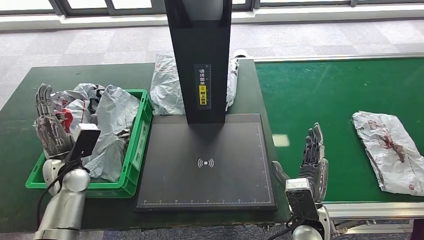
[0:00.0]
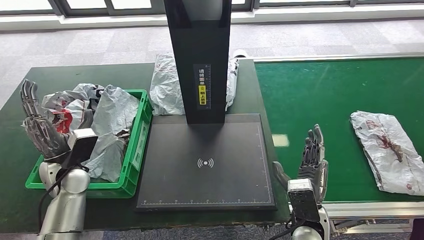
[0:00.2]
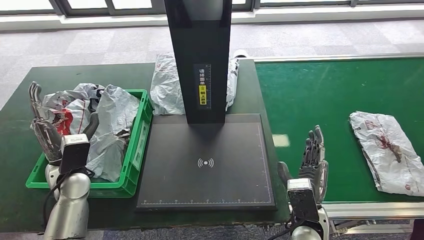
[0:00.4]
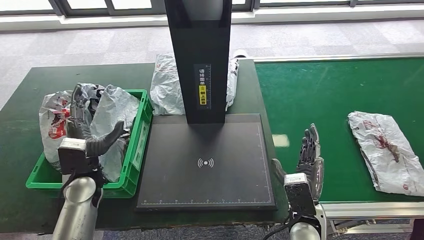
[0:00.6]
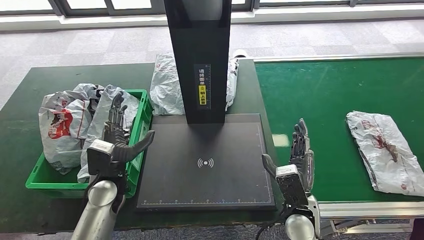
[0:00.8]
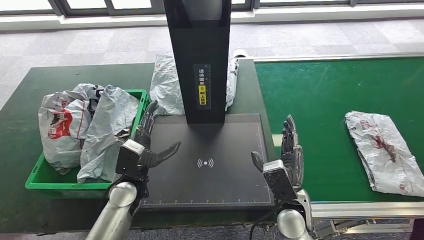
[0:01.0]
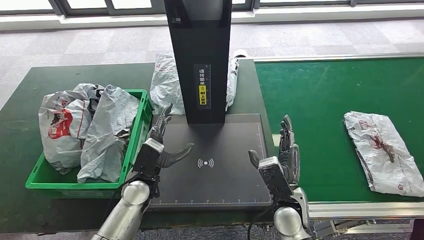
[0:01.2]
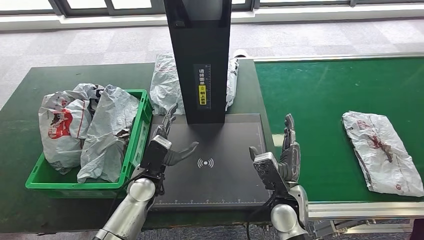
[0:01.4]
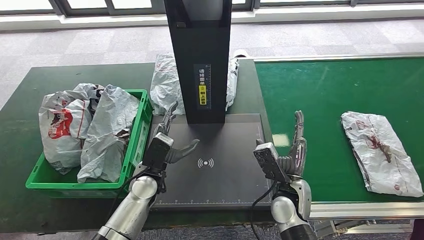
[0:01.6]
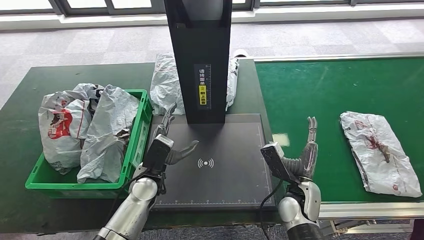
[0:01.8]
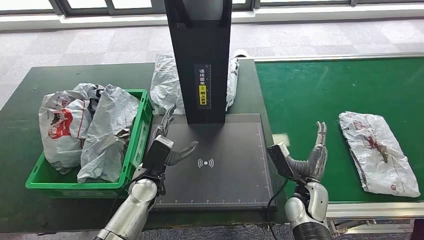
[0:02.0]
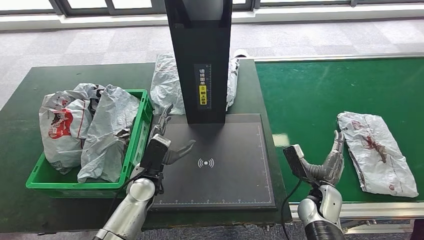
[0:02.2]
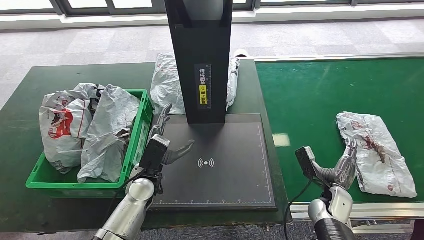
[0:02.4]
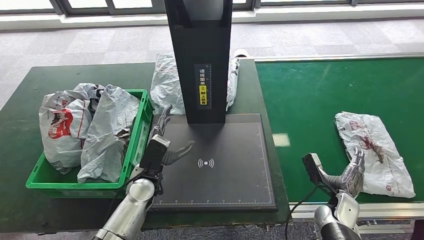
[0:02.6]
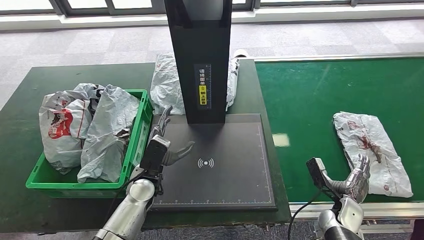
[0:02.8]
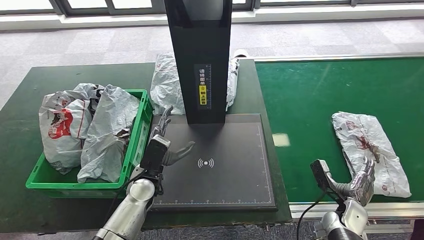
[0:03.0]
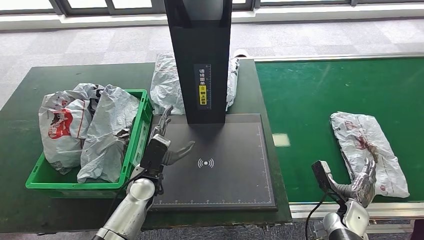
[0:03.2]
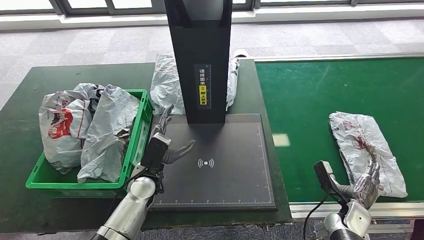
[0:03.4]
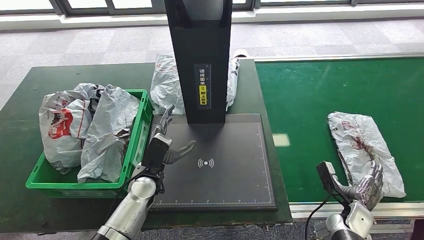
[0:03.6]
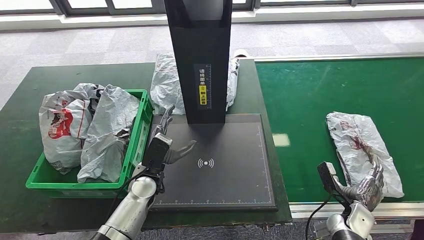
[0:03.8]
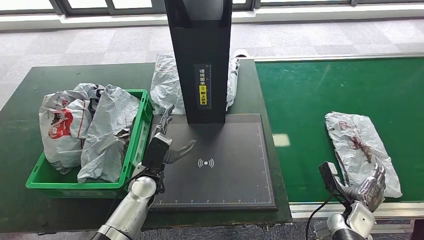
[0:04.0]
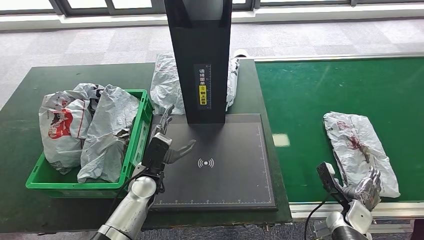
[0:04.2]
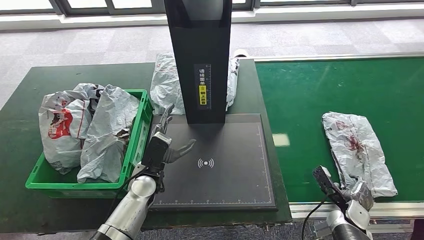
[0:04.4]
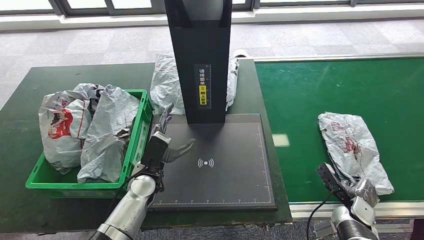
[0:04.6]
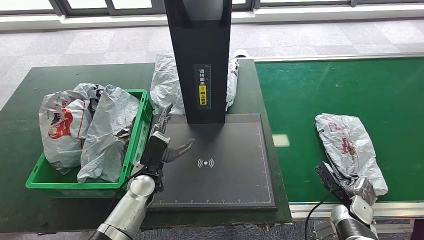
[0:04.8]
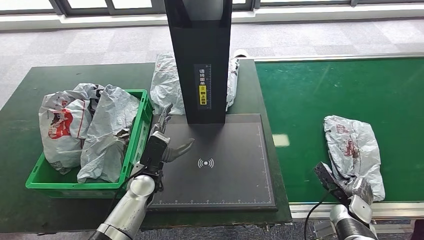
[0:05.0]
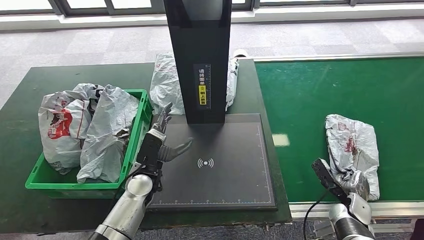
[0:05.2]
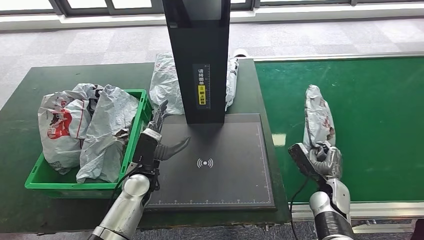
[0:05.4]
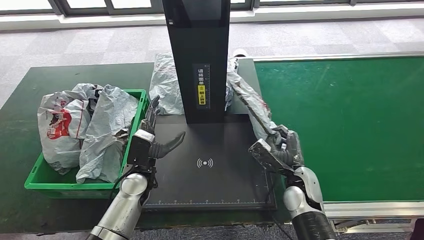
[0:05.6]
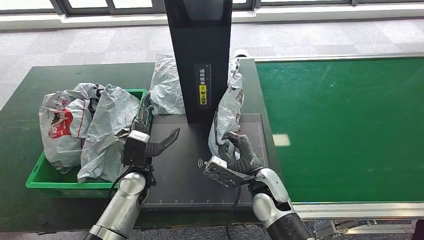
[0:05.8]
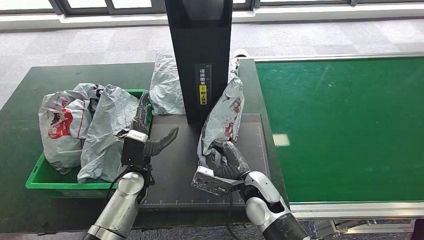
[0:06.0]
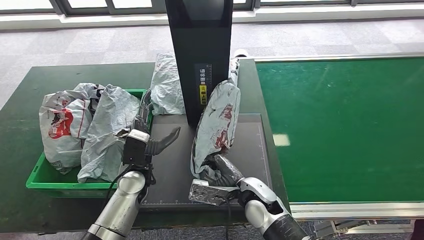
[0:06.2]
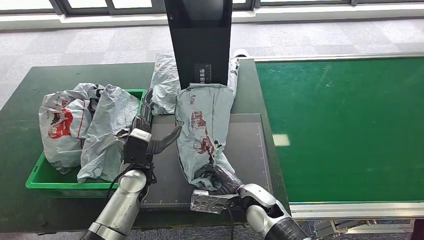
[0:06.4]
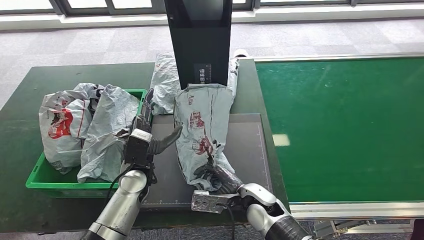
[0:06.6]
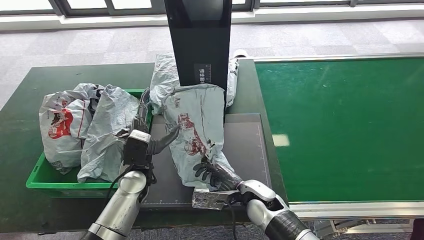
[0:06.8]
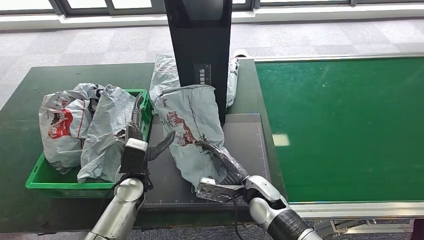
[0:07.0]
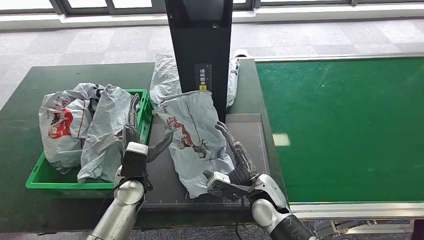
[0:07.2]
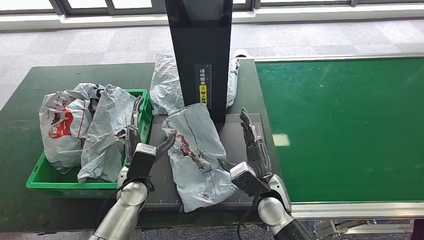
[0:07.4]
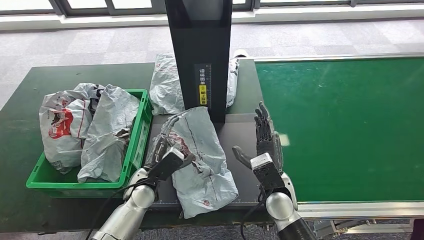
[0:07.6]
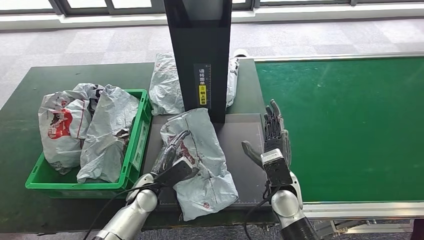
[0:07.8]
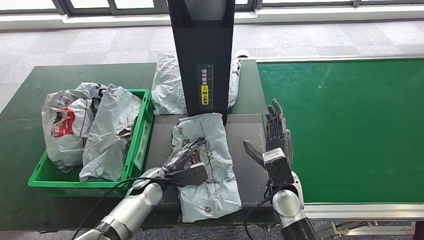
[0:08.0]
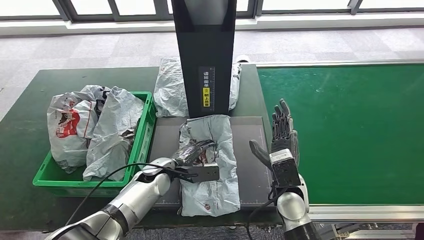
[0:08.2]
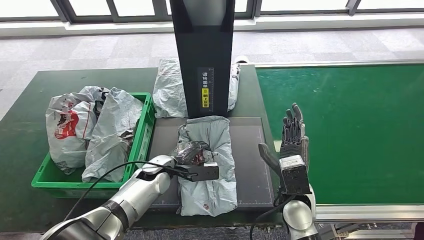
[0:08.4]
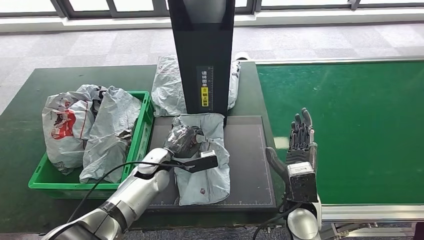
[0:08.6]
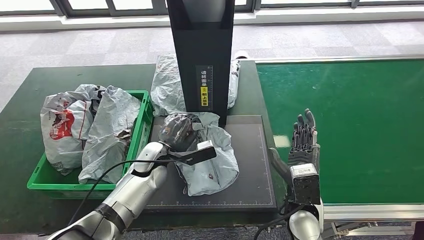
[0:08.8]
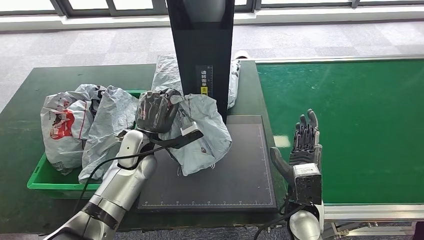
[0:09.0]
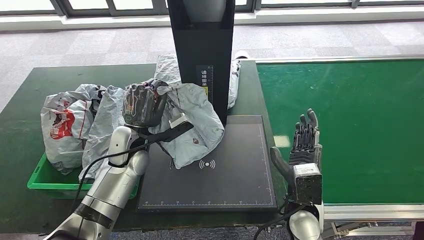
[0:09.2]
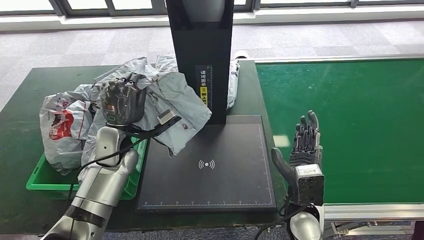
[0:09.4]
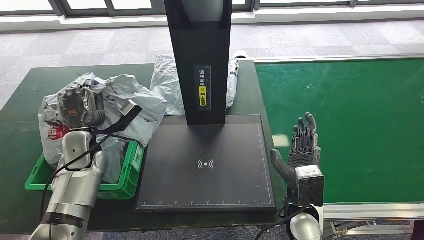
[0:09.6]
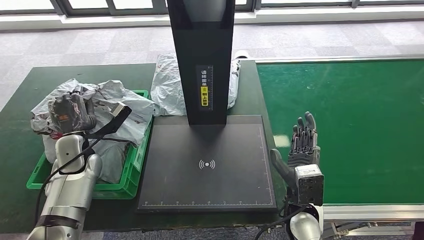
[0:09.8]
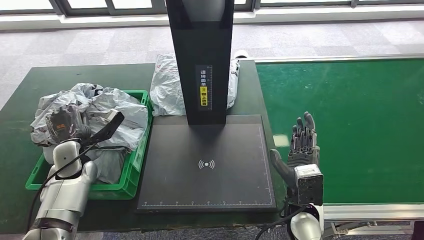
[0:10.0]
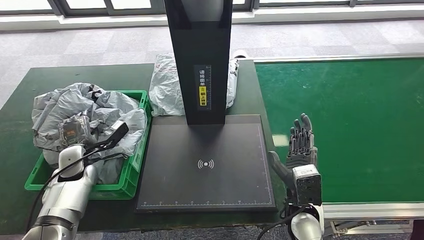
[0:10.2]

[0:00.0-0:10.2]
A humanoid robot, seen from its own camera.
Step, 0:00.0 to 0:01.6: Place the parcel into the delivery box.
Step, 0:02.0 to 0:06.4: Pick up the parcel from the conveyor belt.
Step, 0:06.8 to 0:08.4: Place the parcel onto the inbound machine.
Step, 0:08.6 to 0:10.0: Pick up the parcel from the inbound machine.
0:00.0 to 0:01.4: The left hand travels to the right by some 20 cm; the right hand changes place by approximately 5 cm.
0:01.4 to 0:03.0: The right hand moves to the right and downward, some 20 cm.
0:04.4 to 0:05.8: The right hand moves to the left and upward, some 25 cm.

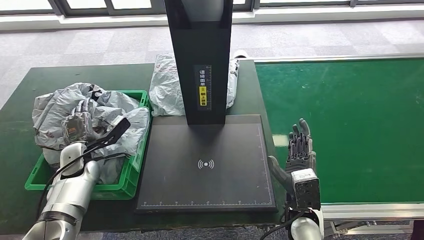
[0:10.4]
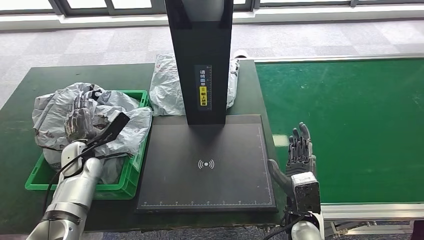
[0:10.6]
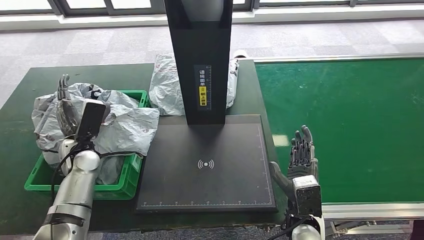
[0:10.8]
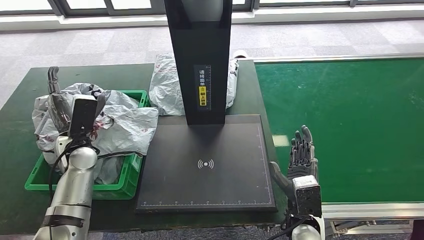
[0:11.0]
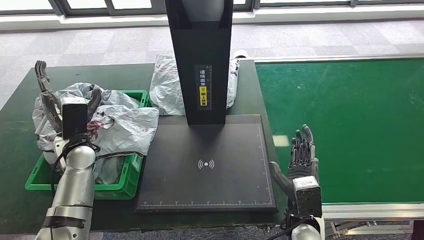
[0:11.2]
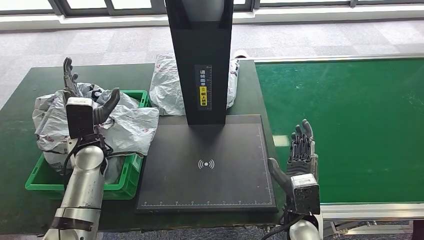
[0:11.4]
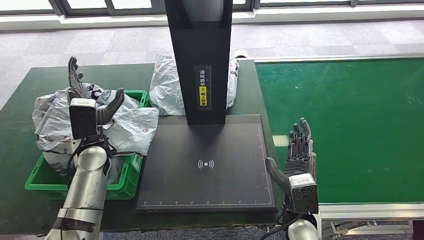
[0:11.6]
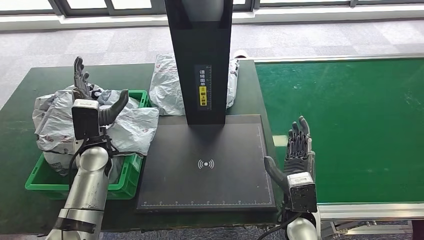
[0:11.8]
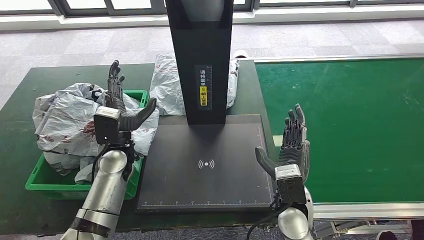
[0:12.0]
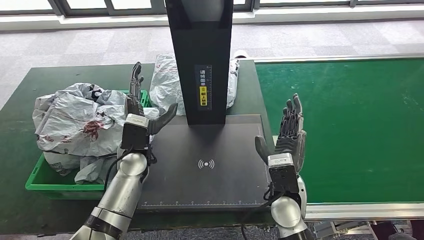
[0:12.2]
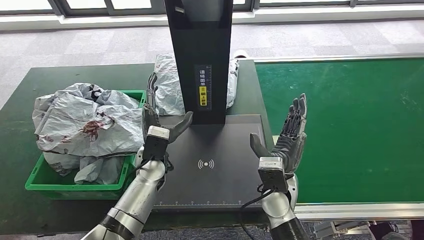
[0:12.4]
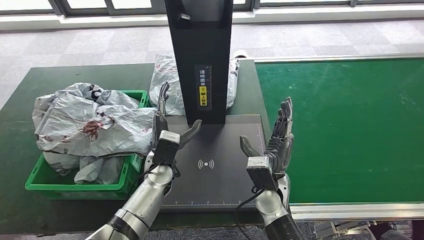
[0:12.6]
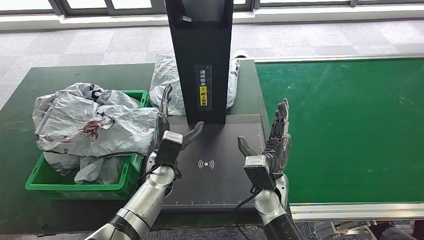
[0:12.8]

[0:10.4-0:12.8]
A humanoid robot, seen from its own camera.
Step, 0:10.4 to 0:12.8: Place the parcel into the delivery box.
0:10.4 to 0:11.6: The left hand shifts some 10 cm to the right and upward.
0:11.6 to 0:12.8: The left hand moves to the right and downward, some 20 cm; the right hand travels forward and to the left by roughly 10 cm.

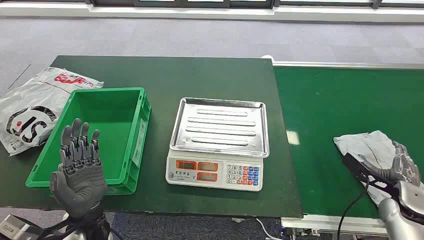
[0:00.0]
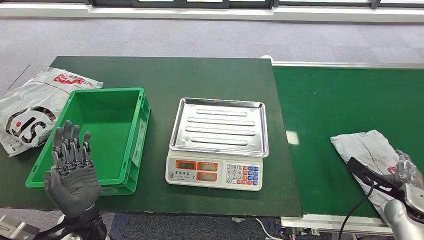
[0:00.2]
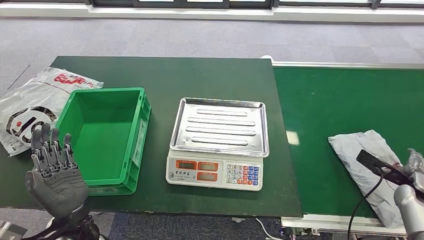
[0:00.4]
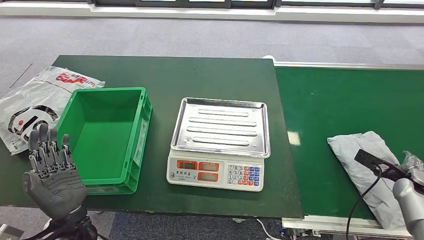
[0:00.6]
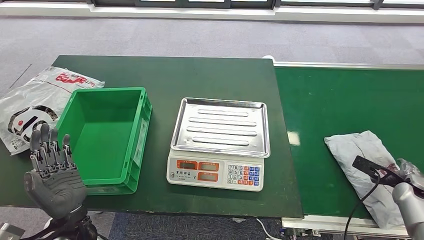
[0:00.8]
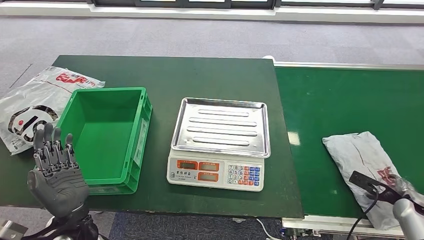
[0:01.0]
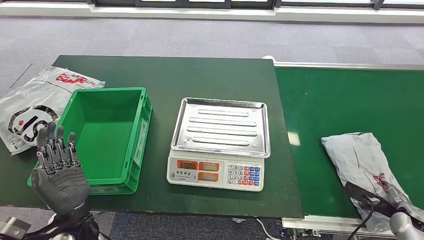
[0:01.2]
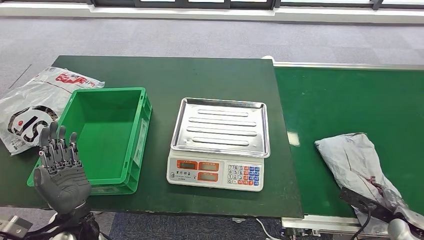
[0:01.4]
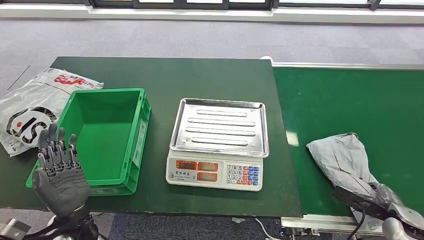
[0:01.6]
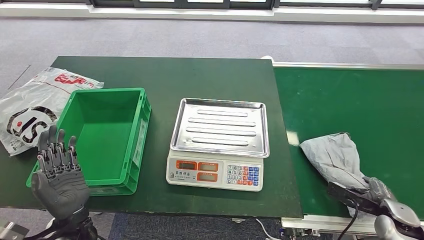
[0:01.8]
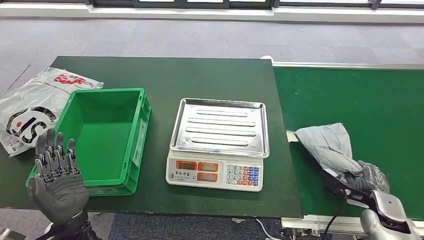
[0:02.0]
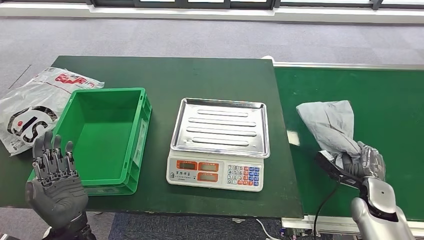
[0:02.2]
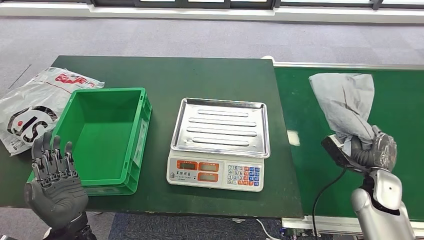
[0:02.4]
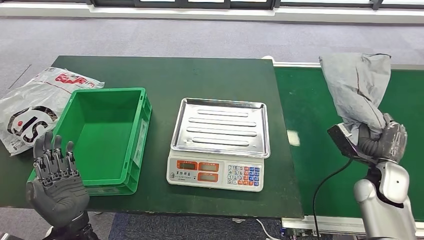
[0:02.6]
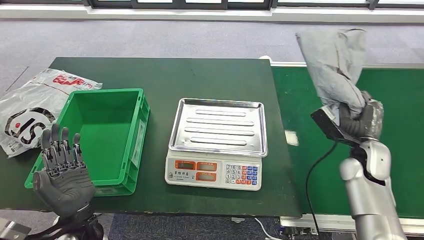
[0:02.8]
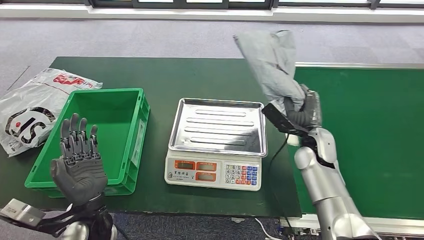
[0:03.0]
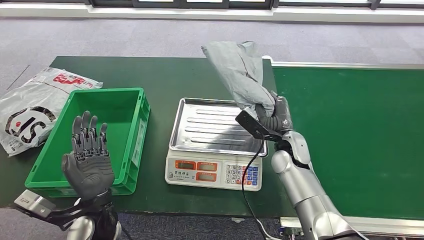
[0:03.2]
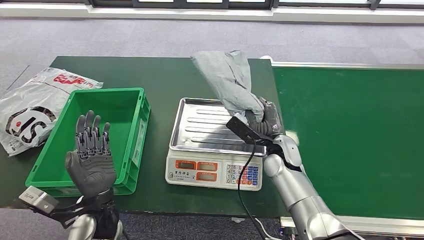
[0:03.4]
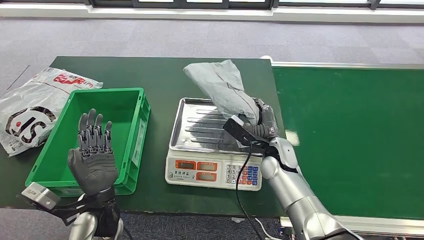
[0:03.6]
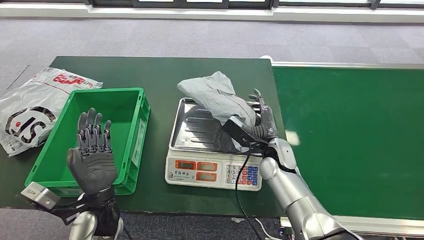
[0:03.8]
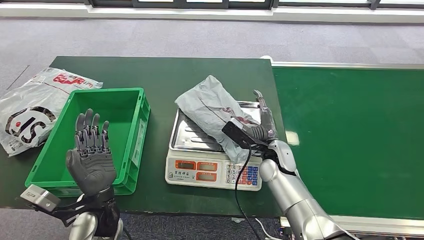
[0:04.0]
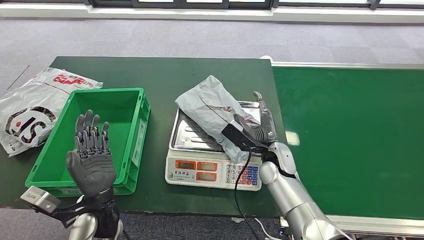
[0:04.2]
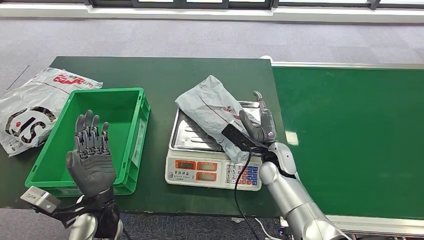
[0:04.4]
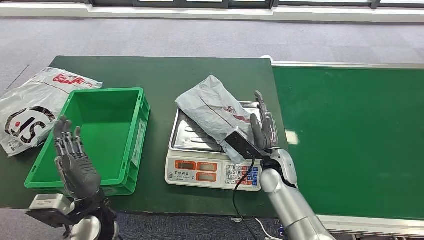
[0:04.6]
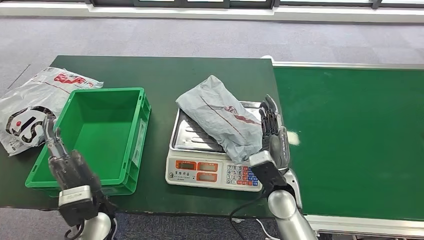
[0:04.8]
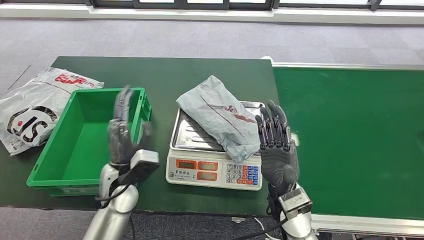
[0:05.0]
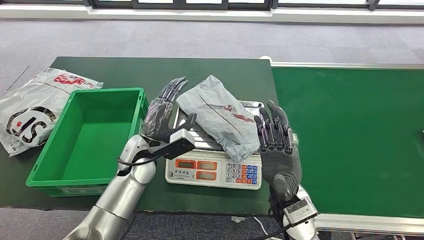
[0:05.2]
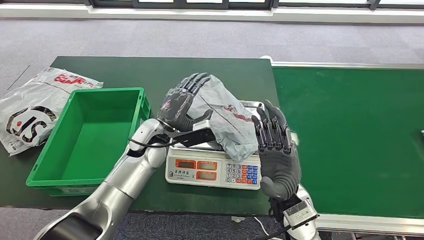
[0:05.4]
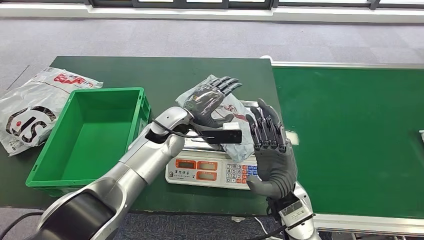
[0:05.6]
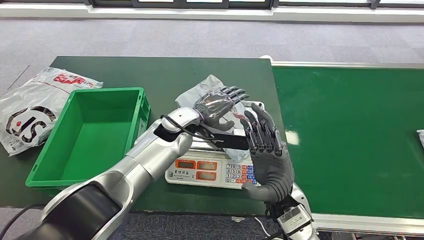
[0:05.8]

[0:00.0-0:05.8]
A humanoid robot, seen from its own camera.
Step, 0:00.0 to 0:02.6: Take the parcel off the conveyor belt.
Step, 0:02.8 to 0:04.8: Place the parcel onto the inbound machine.
0:04.4 to 0:05.8: The left hand is displaced forward, to the right and upward by some 25 cm, while the right hand shifts about 15 cm backward and upward.
